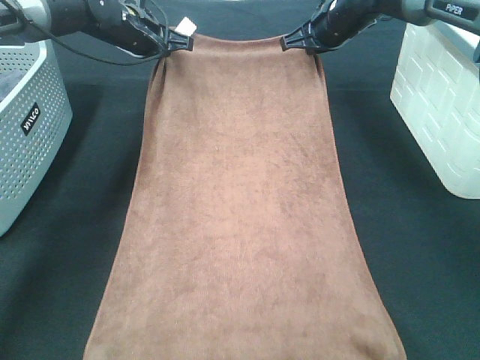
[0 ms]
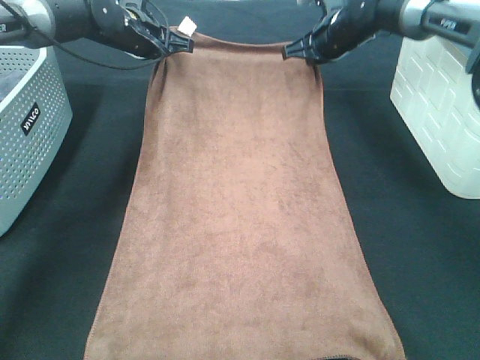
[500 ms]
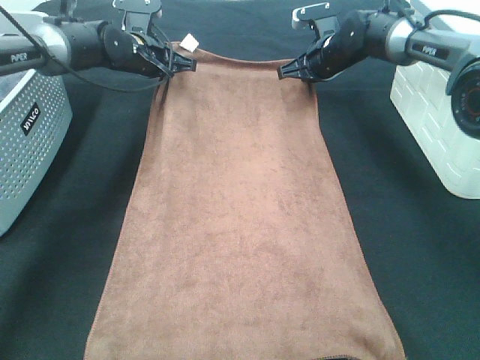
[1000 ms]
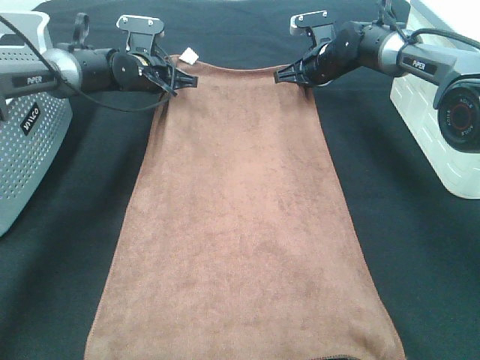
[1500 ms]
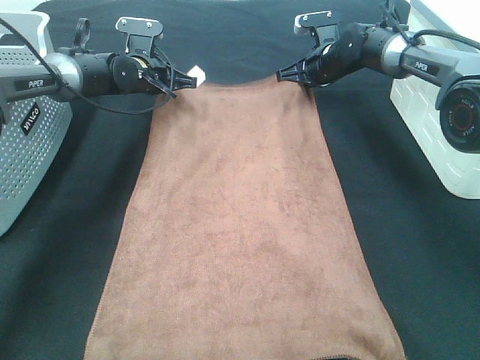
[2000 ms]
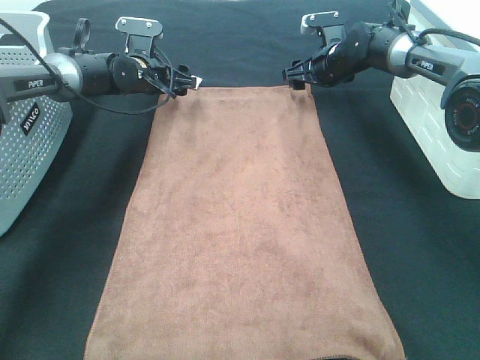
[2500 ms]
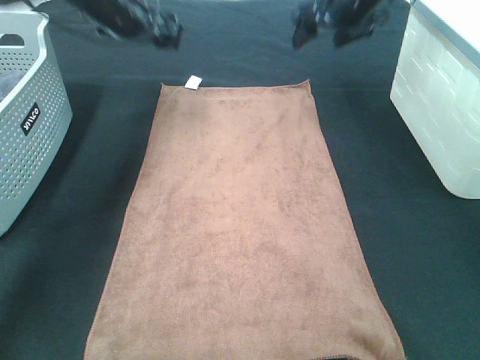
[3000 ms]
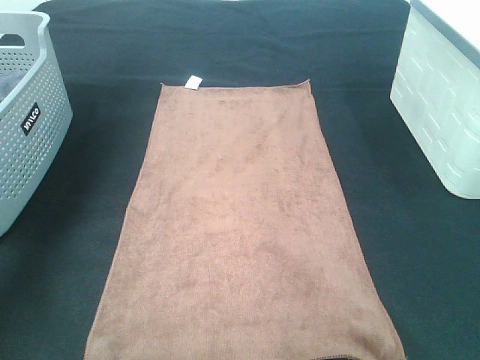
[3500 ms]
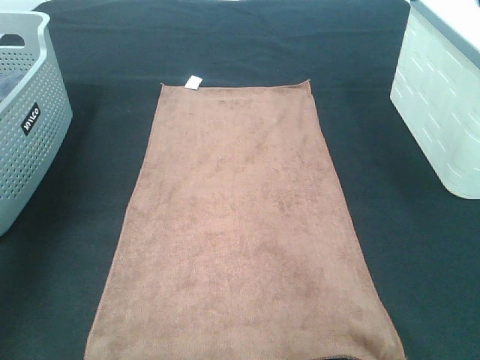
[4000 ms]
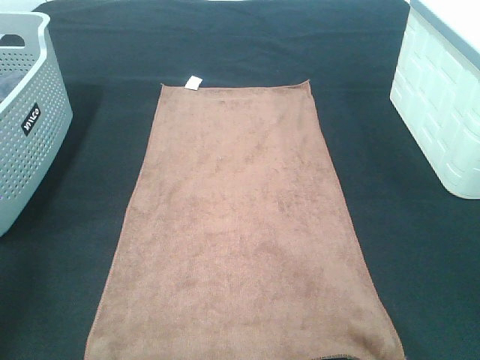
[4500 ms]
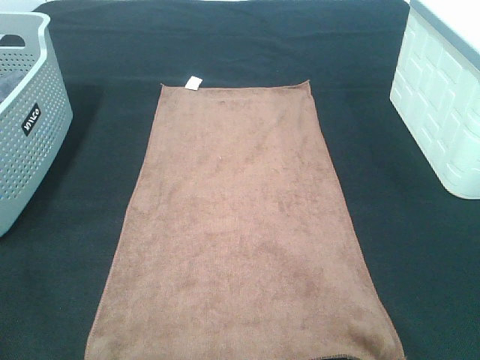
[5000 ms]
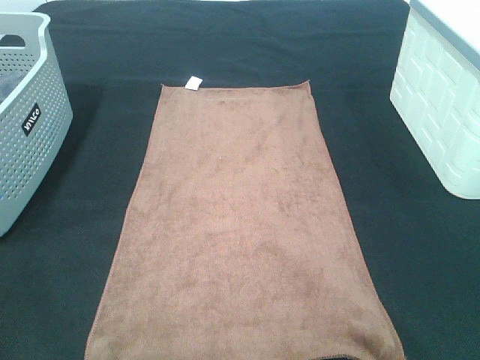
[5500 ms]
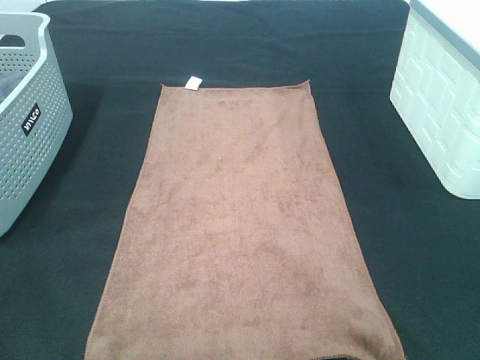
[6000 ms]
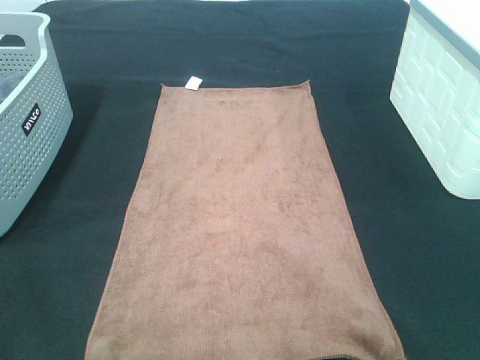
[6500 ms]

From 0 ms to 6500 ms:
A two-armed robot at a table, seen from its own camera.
Task of the whole recording: Remove the towel and place it.
From 0 ms to 2000 ms: Both grippers move downward, approximately 10 cm.
From 2000 ms to 4500 ms: Both grippers move backward and upward, some 50 cm. The left gripper opens, while the right gripper opens its fingers.

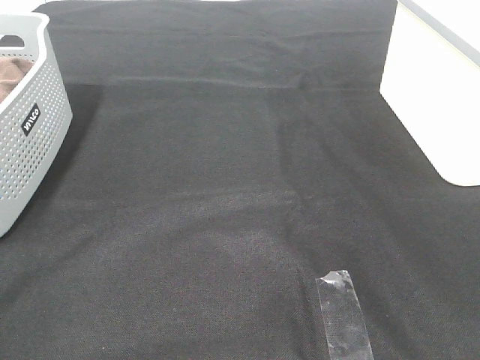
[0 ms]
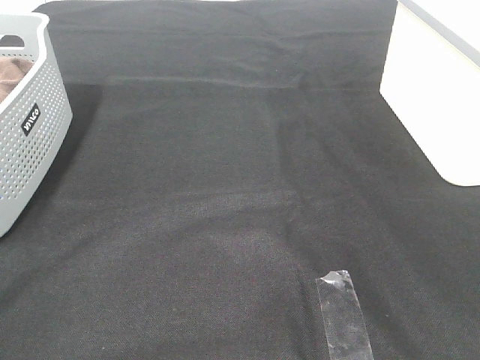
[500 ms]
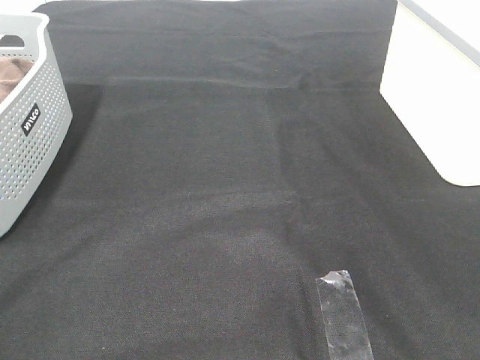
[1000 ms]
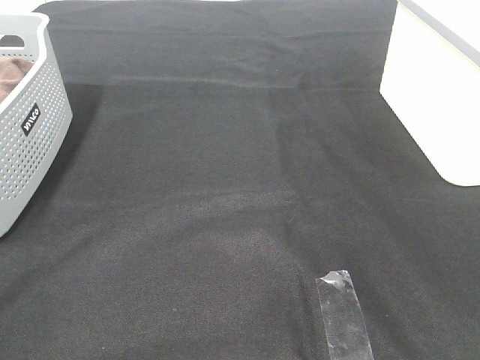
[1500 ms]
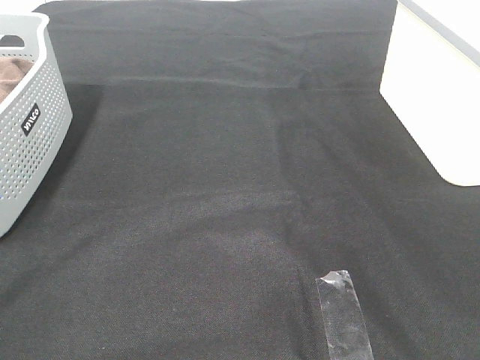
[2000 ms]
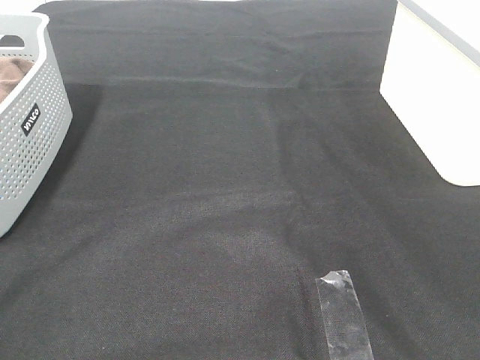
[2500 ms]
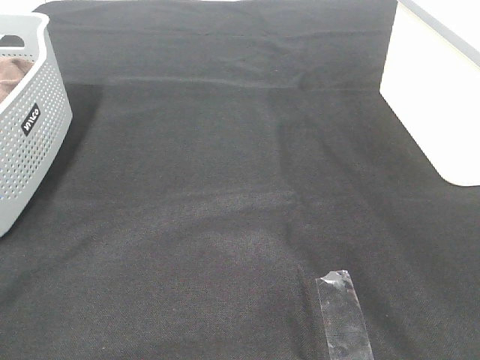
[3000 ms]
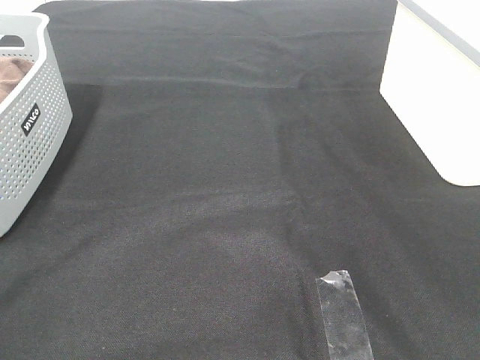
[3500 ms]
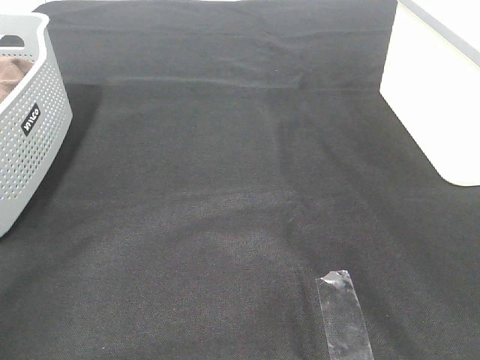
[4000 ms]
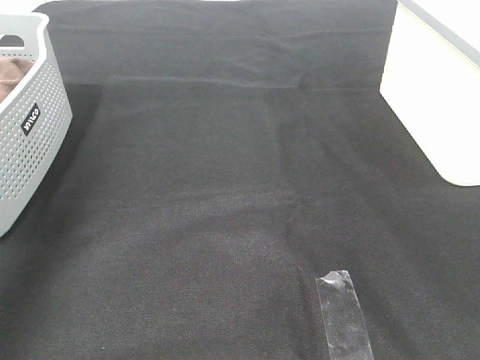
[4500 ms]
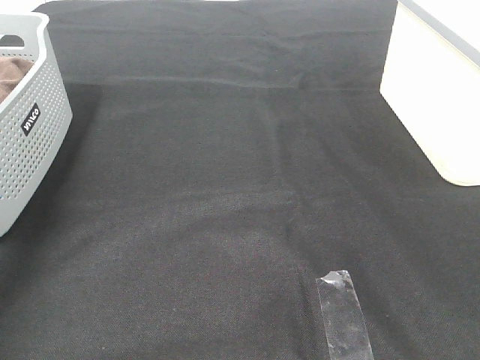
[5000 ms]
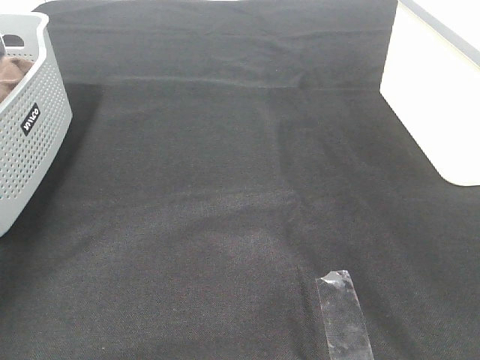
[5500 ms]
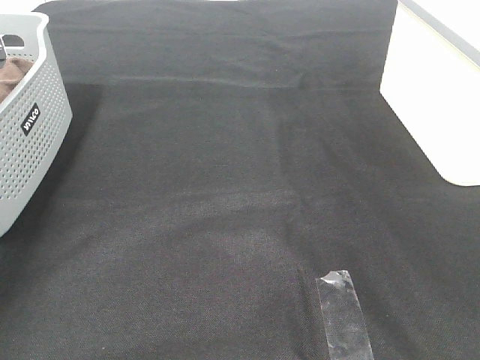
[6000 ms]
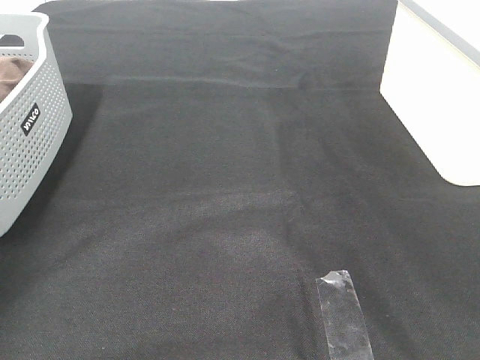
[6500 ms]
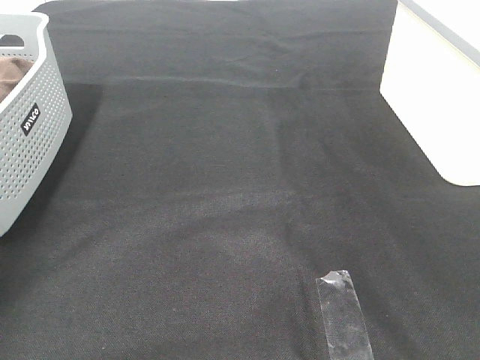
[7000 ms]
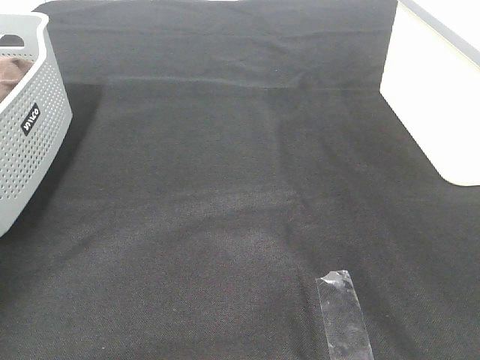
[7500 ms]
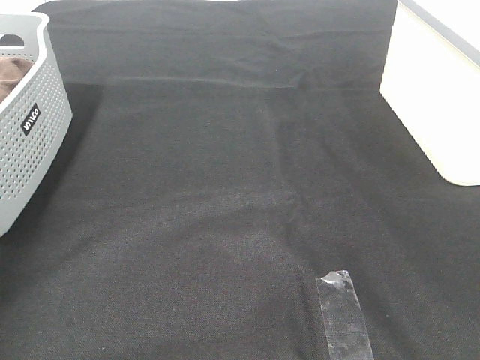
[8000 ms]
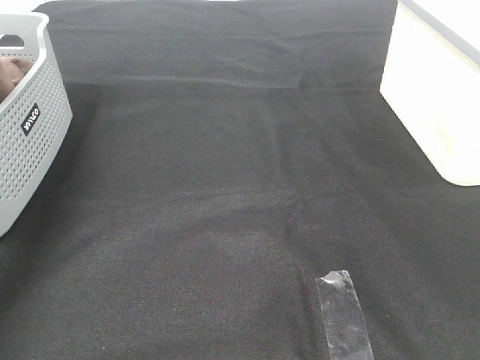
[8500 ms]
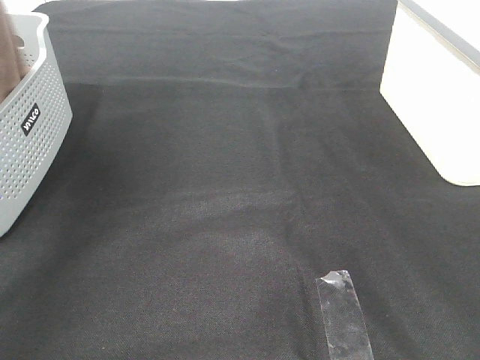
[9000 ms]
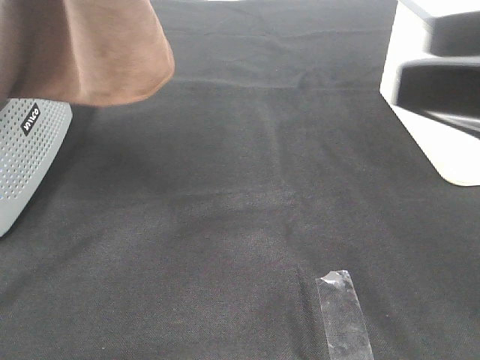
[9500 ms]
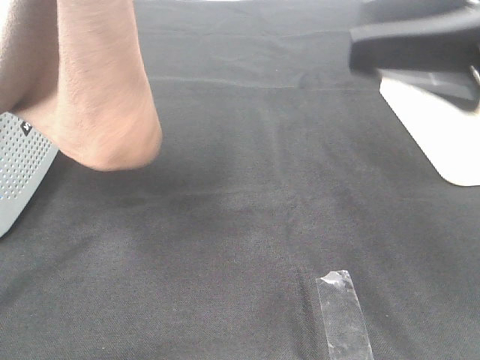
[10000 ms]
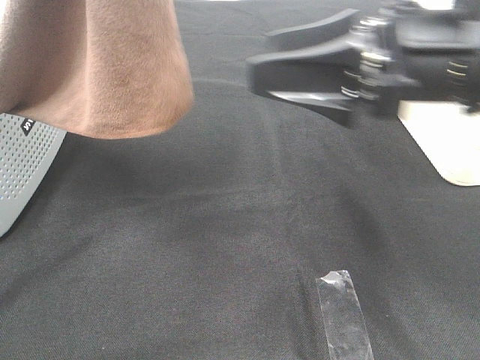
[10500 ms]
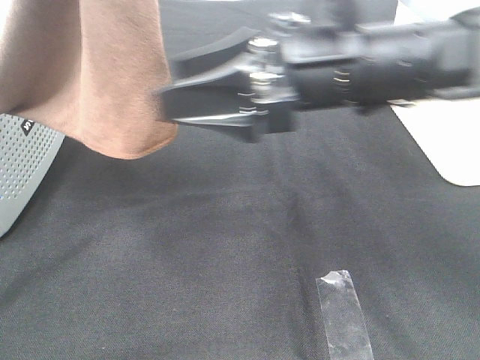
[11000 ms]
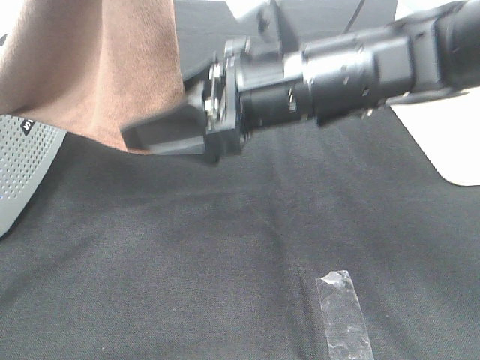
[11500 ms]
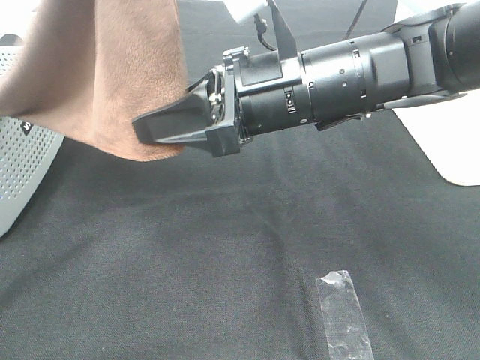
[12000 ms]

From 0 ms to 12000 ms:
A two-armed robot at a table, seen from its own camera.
Task of the whole recording: Remove the towel and place it.
From 0 ms to 2000 ms: Both grippers stay put.
From 4000 ms to 6000 ms: The left gripper heads forward and downward, covering approximately 40 cm.
From 8000 ms to 10000 ms: The right gripper shifts some 20 cm forward, while the left gripper travels to the right, upward and backward by roughly 35 cm.
From 10000 ms to 12000 ms: The right gripper shifts some 15 cm to the left and downward, and closes its fingers.

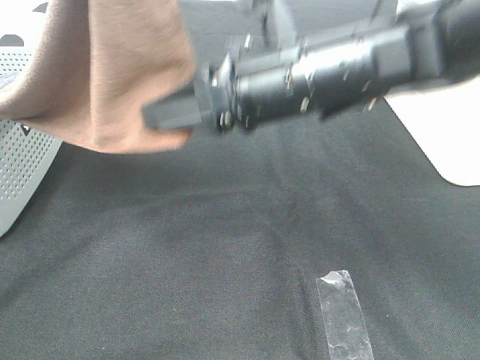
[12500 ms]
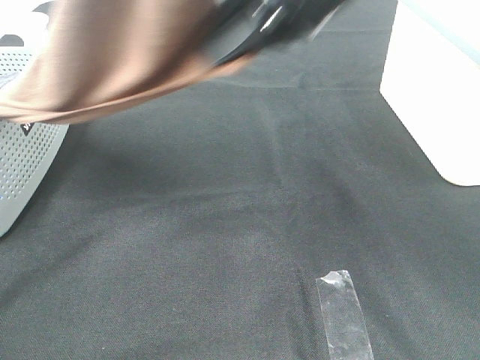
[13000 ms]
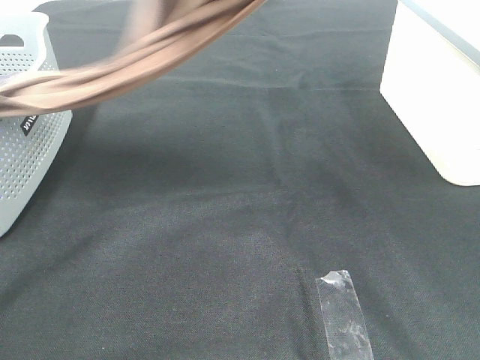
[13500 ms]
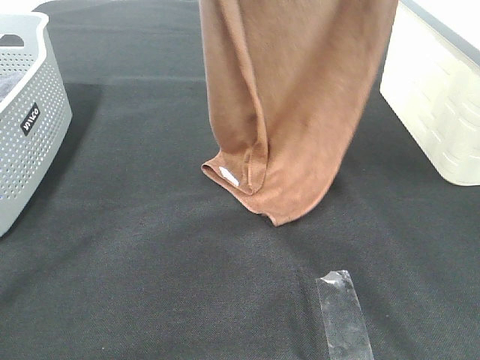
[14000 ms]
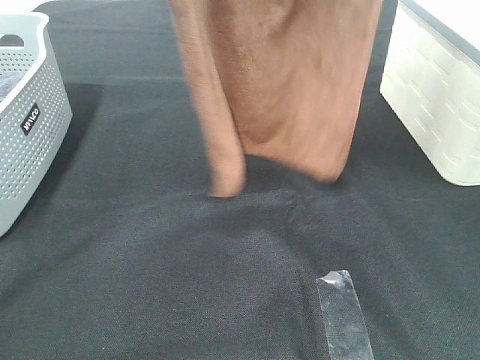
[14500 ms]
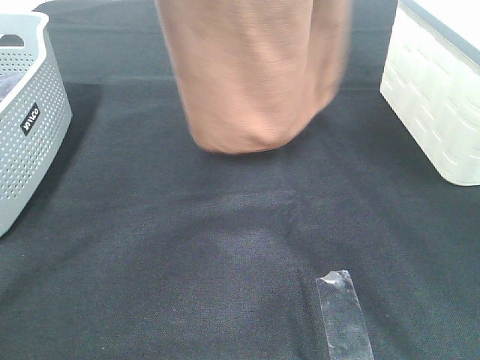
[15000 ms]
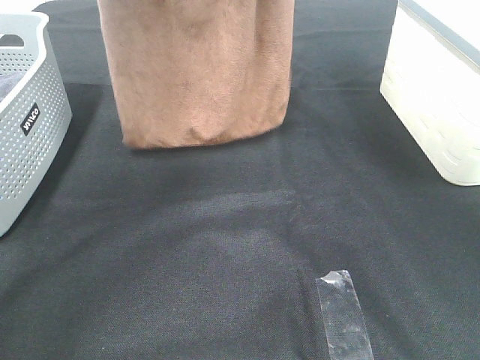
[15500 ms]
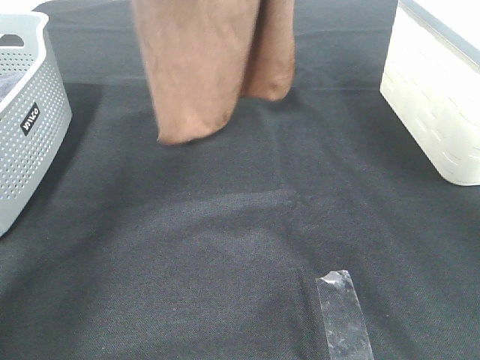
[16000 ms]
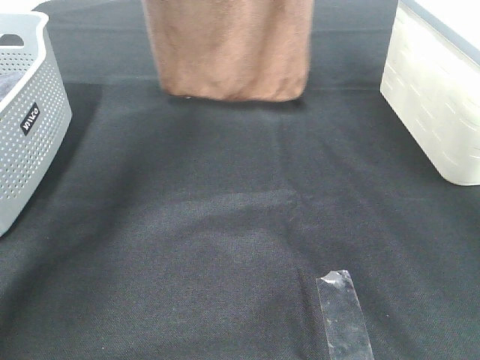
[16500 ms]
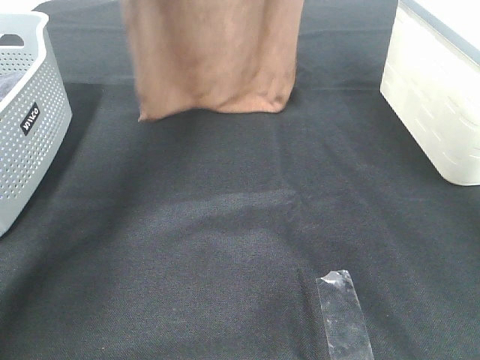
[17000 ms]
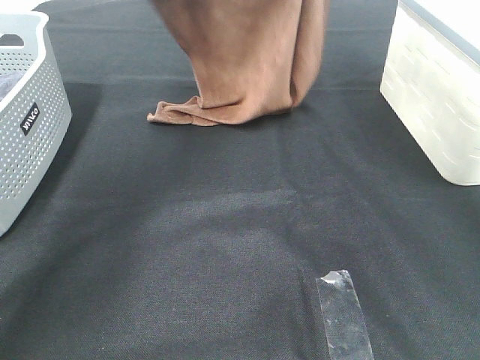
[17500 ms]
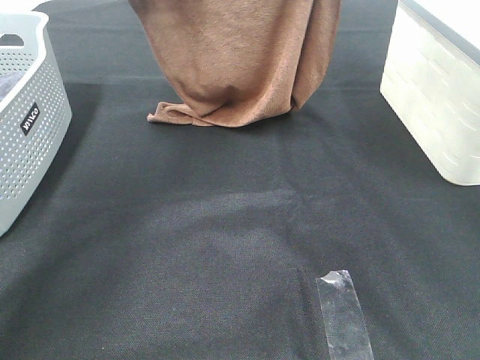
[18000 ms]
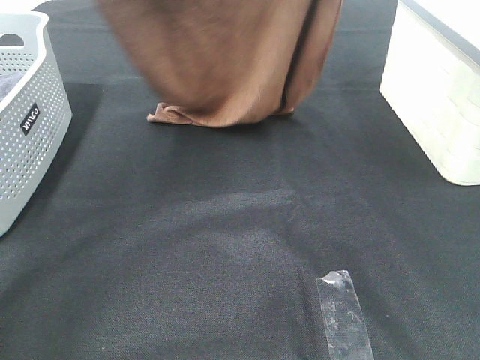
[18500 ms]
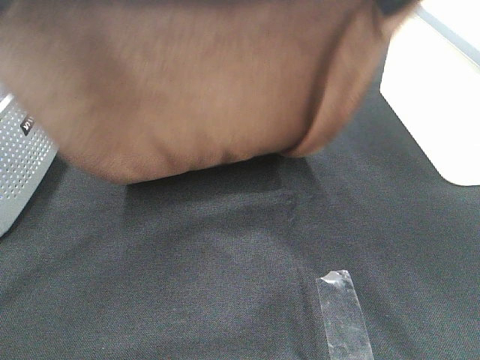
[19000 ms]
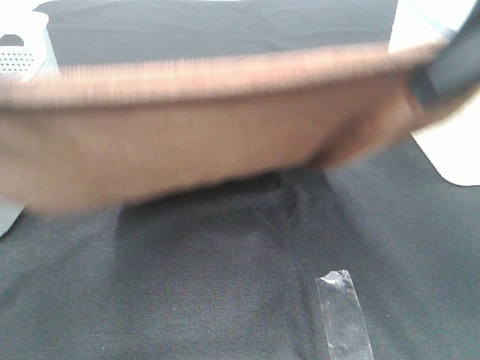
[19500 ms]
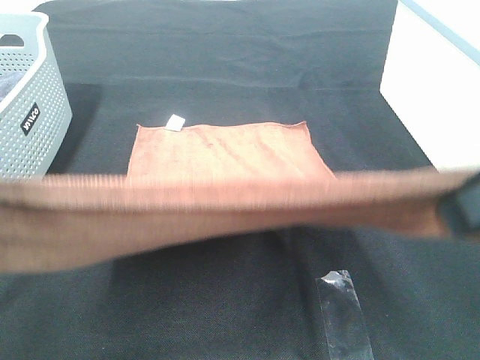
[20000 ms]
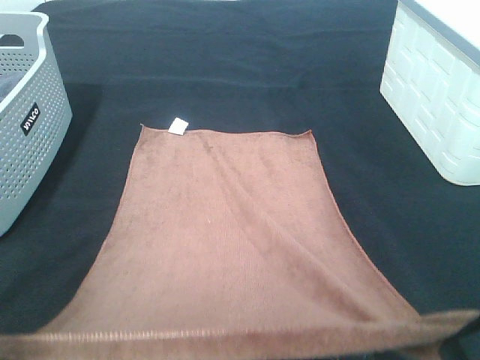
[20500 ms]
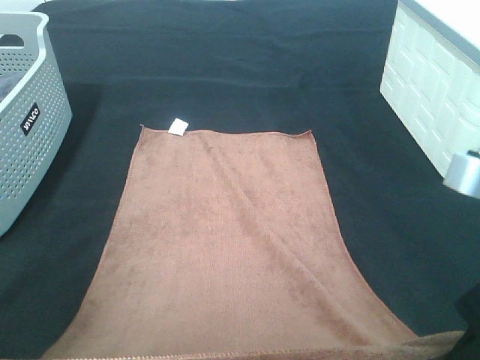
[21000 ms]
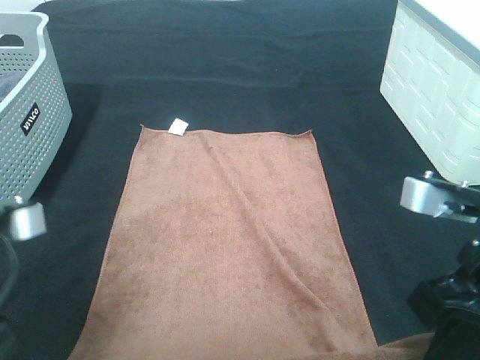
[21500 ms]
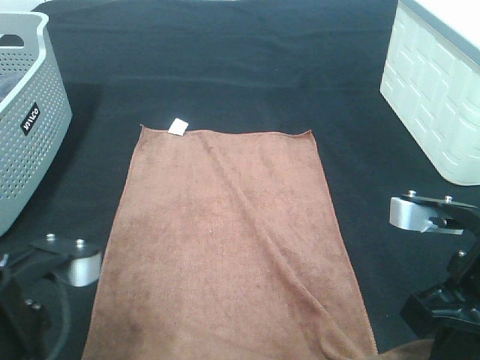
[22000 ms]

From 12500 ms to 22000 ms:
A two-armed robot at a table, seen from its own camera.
Task of the whole recording: Remove the towel and place it.
Step, from 12500 ms to 18000 ms: Left hand: spread the brown towel flat on the table.
Step, from 12500 ms to 18000 ms: Right hand: spread the brown towel flat on the table.
From 12500 ms to 14500 ms: The right gripper heads upward, covering roughly 30 cm. The left gripper heads forward, covering about 10 cm.
From 14500 ms to 16500 ms: Both grippers move forward, about 15 cm.
From 16500 ms to 18000 ms: The right gripper goes about 5 cm backward and downward. Meanwhile the left gripper goes about 10 cm downward.
From 18000 ms to 20000 ms: Both grippers move backward, approximately 30 cm.
From 20000 ms to 22000 ms: The two grippers go roughly 15 cm downward.
